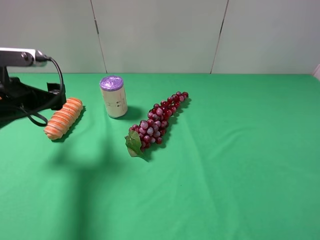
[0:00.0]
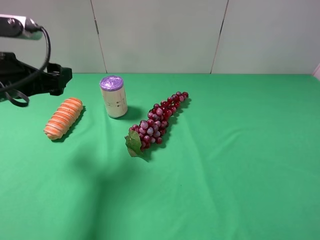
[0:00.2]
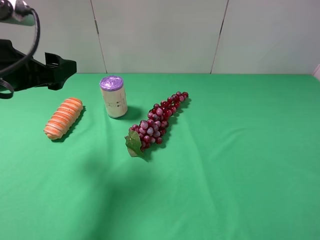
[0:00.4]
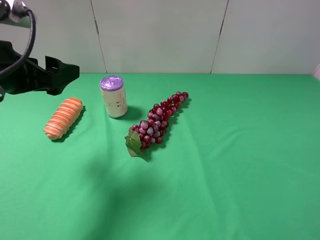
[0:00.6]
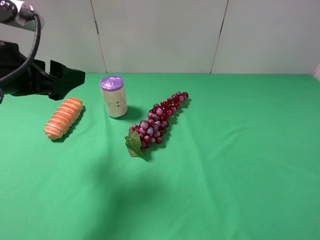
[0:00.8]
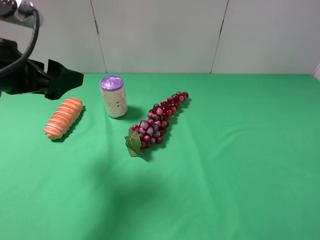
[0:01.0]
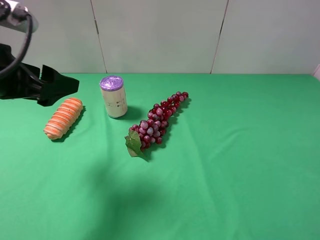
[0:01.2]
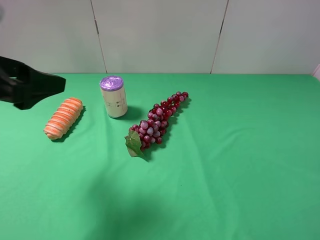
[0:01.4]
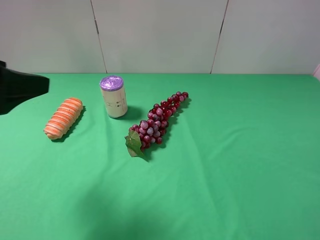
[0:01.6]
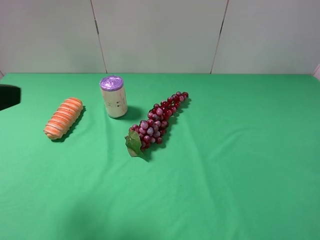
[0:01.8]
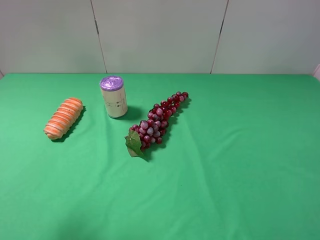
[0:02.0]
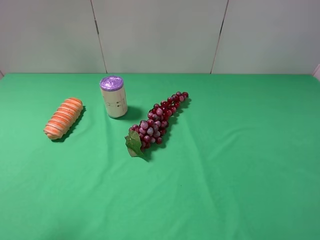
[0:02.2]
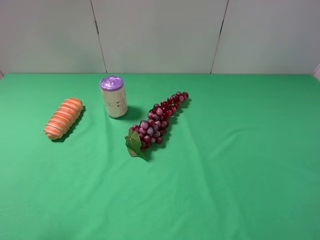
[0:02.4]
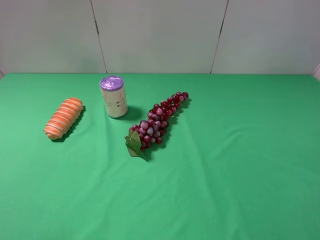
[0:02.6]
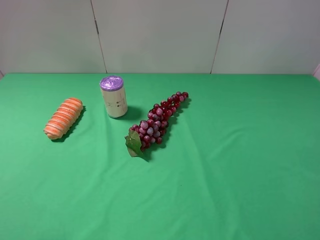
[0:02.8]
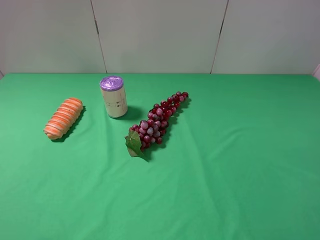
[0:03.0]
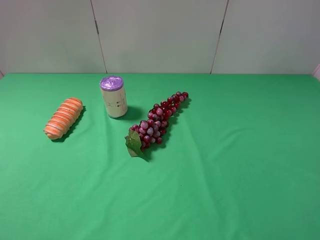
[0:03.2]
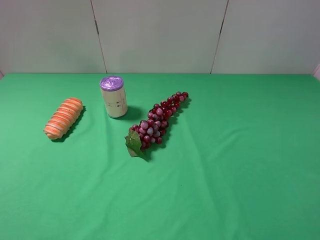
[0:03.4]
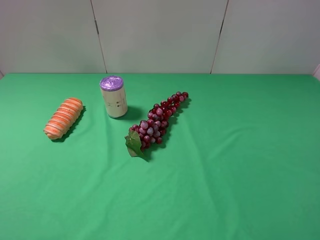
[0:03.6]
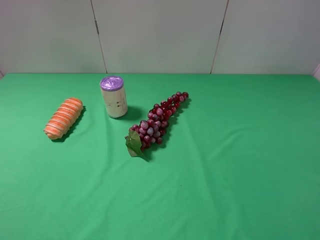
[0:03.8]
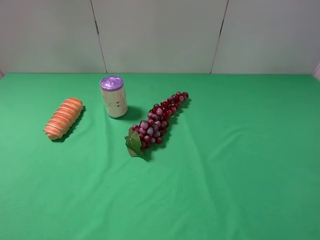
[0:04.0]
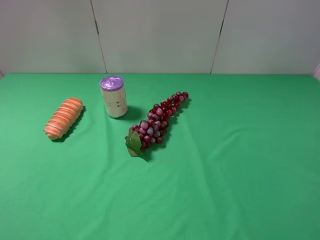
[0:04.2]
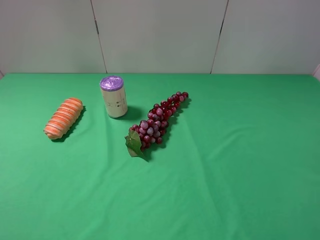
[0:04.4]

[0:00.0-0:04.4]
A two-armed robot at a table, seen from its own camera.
Task of the whole recording: use the right gripper to pick up the item and transfer it from the right gripper to the left gripper.
0.0 to 1.4 s: The left gripper moves upward and backward, some 10 cm.
1.4 to 3.0 s: The left gripper moves backward, roughly 15 cm.

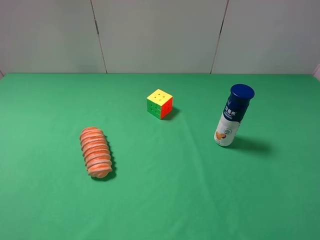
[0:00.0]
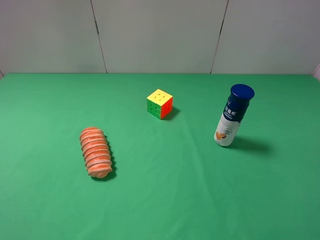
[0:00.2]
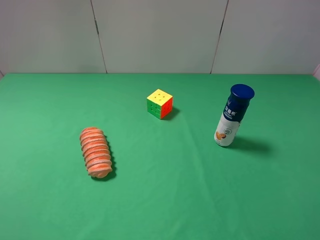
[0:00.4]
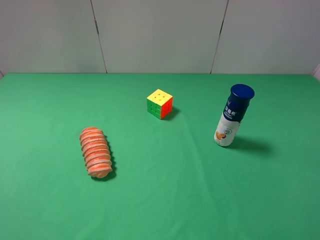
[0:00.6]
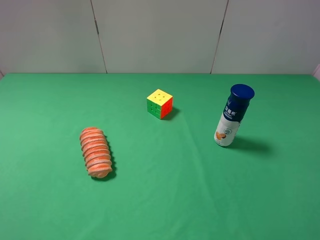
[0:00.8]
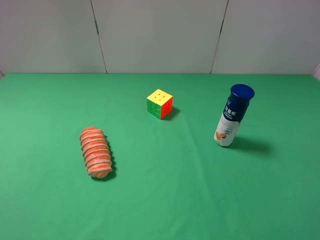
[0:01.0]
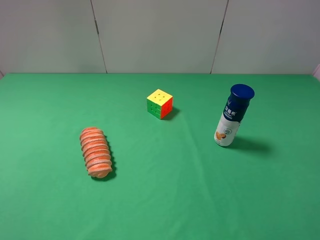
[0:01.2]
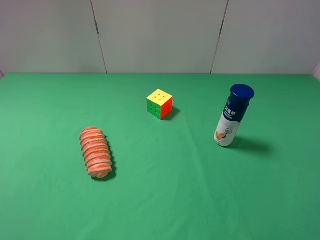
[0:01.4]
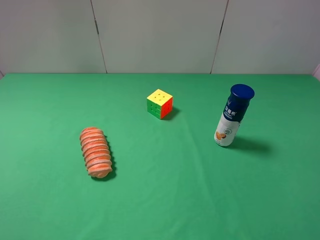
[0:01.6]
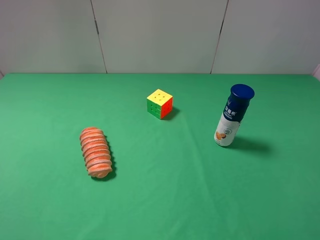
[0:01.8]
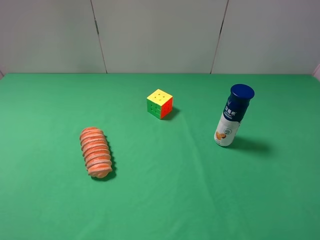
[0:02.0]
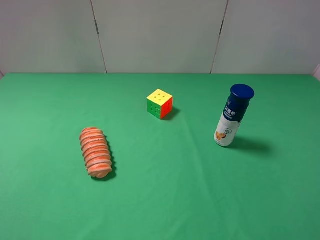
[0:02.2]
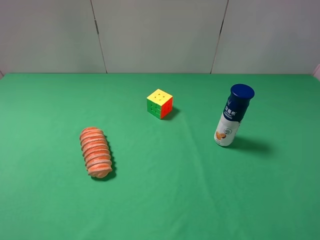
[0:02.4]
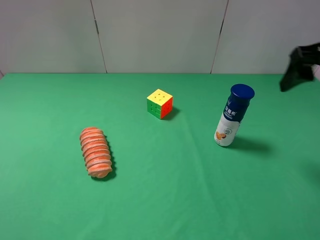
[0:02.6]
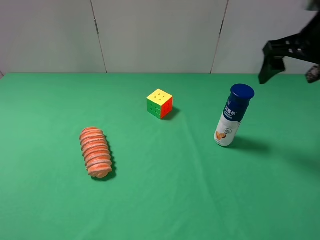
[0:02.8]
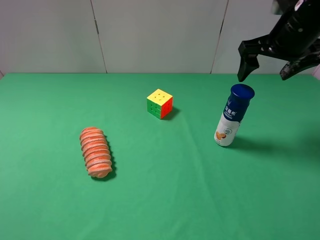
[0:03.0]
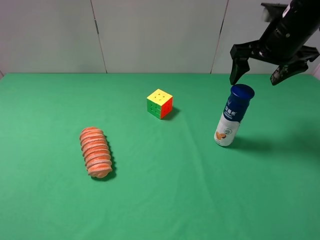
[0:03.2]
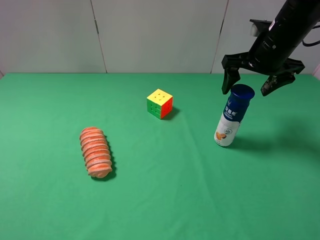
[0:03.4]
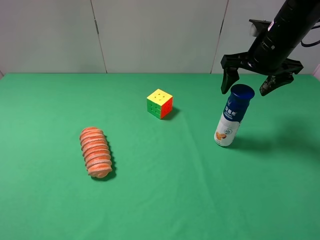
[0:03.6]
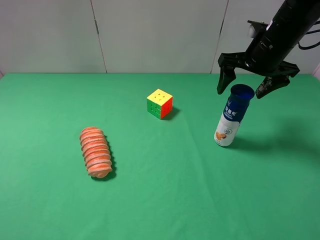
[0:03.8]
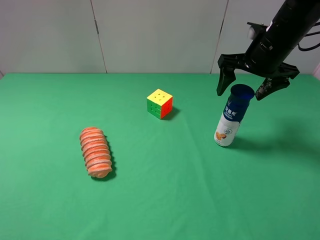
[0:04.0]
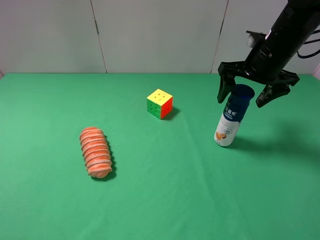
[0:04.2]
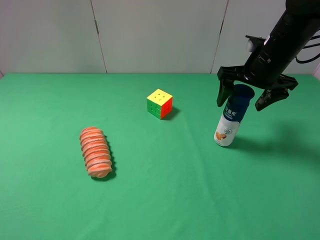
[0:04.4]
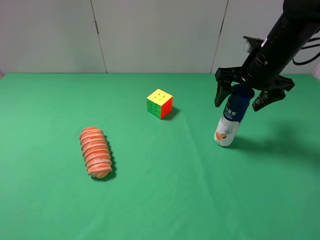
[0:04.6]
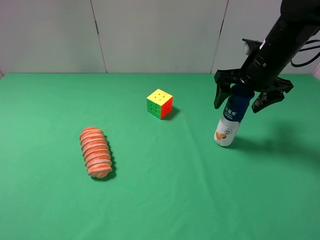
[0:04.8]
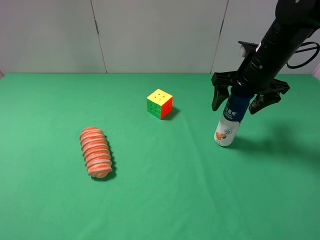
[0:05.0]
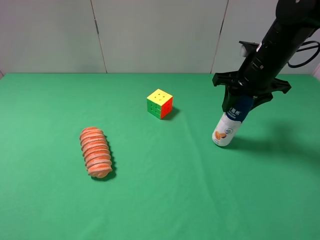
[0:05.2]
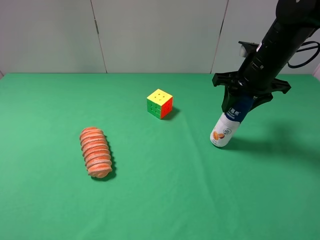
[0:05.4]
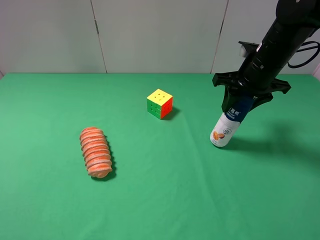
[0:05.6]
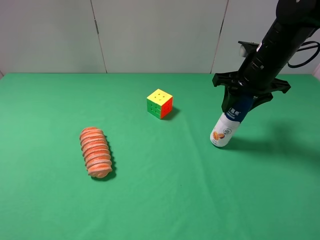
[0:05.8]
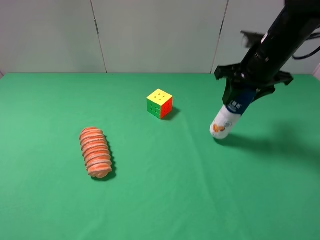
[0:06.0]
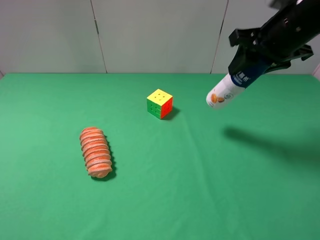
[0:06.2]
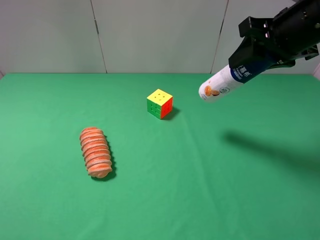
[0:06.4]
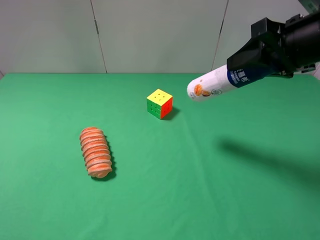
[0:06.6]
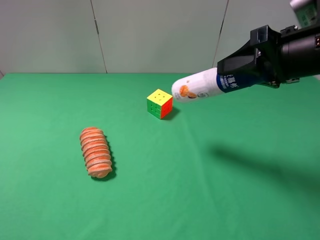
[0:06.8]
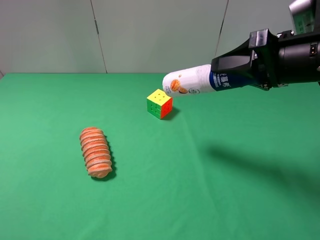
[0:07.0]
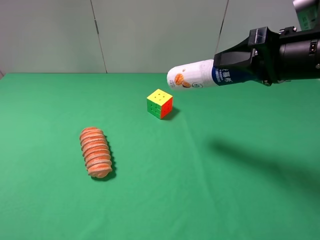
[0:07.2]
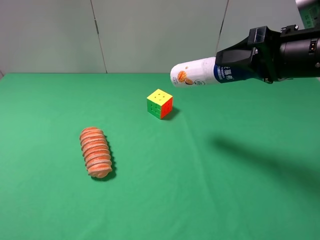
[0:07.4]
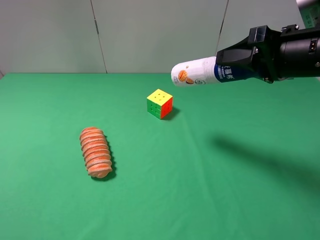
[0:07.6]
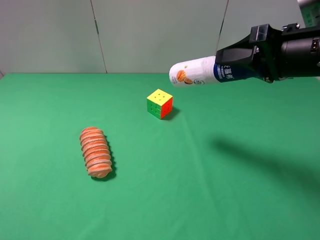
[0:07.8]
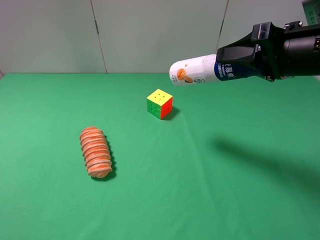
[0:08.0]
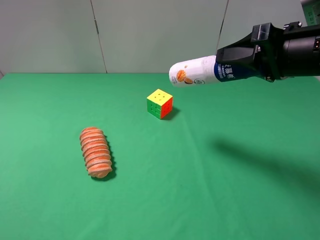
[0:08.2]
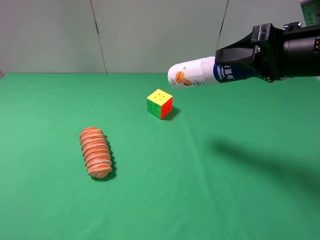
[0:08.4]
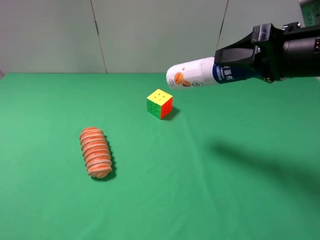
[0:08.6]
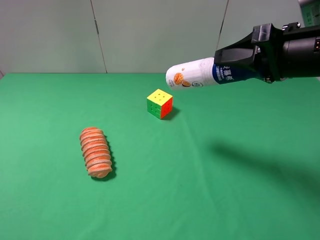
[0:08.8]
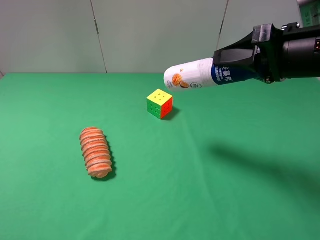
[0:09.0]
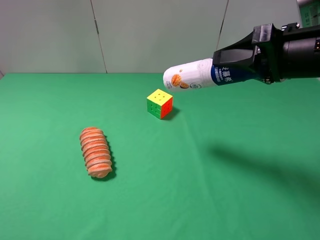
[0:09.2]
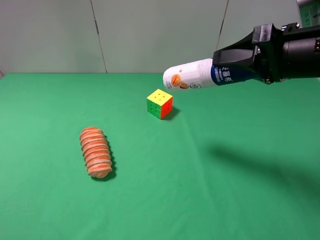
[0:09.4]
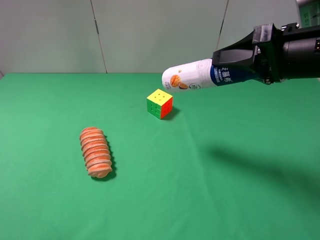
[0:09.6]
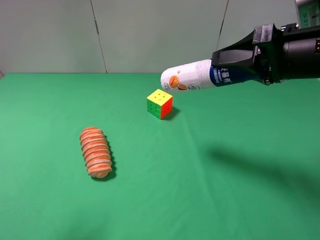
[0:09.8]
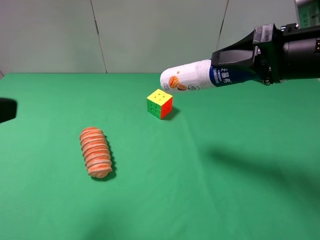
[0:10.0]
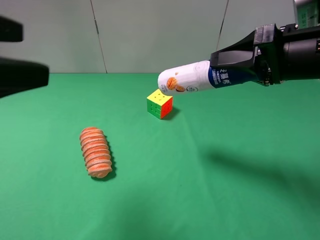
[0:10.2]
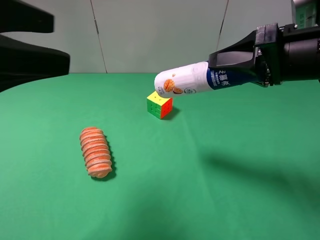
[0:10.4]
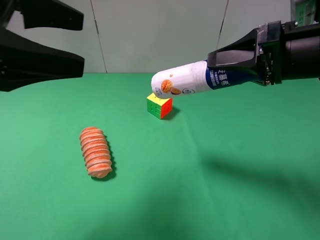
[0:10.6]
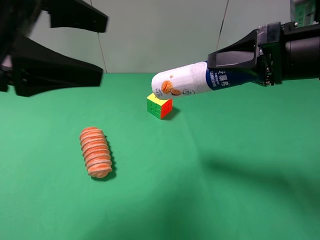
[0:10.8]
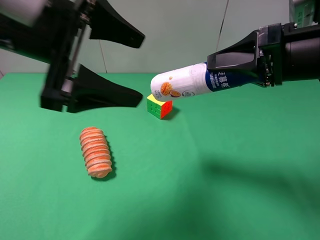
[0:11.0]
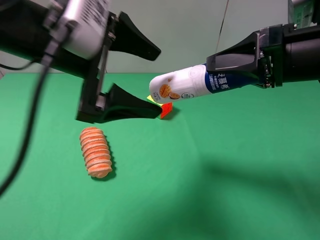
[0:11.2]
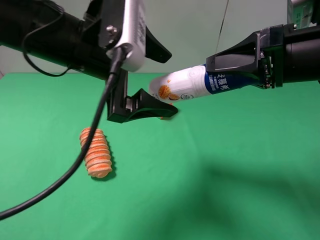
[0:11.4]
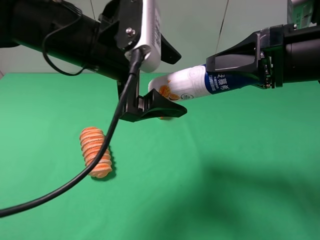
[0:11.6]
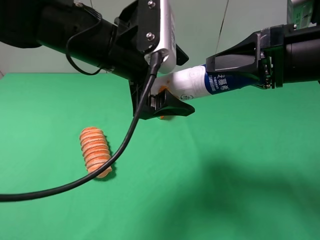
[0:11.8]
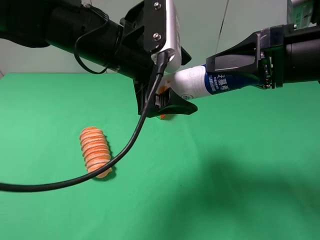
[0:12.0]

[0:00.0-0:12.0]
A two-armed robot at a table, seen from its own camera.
Task of the whole recording: use the right gripper to pick up the item and transfer it from the right gripper to the left gripper.
Step, 0.0 to 5.2 s: Use the right gripper to grab the bread on the right side of the table.
0.0 to 1.6 s: The two grippers keep their place.
1.6 to 3.0 s: The right gripper travels forward by approximately 30 cm.
3.0 to 4.4 s: The right gripper is displaced downward by some 5 cm.
4.4 to 6.0 s: The right gripper closes up.
6.0 to 7.6 s: The right gripper is displaced backward by approximately 10 cm.
7.6 to 9.0 s: Neither gripper changes place.
9.0 to 10.4 s: The left gripper travels forward and to the right by roughly 20 cm.
10.4 to 12.0 s: The left gripper moves to the right, forward and downward, roughly 20 cm.

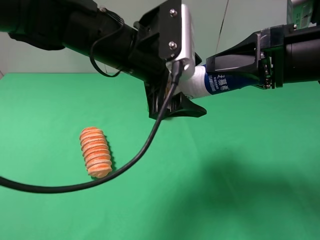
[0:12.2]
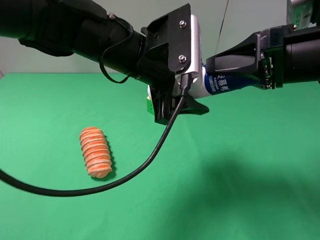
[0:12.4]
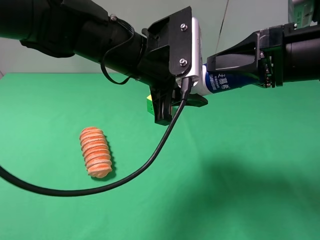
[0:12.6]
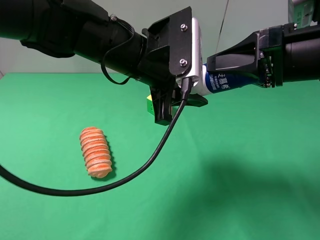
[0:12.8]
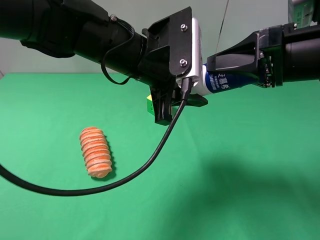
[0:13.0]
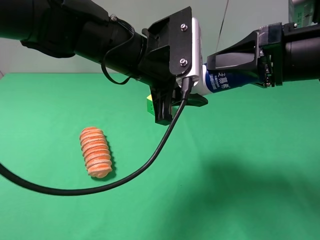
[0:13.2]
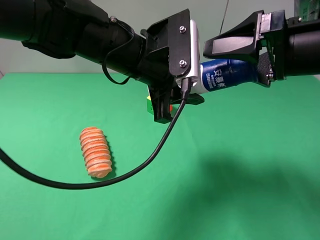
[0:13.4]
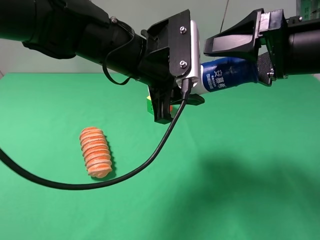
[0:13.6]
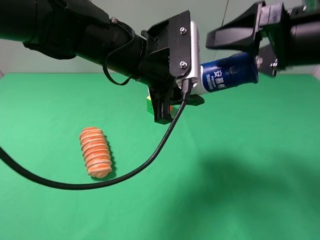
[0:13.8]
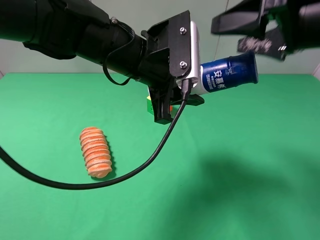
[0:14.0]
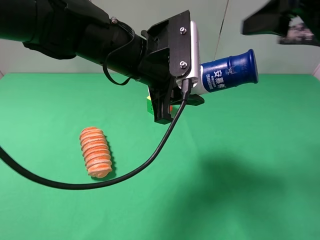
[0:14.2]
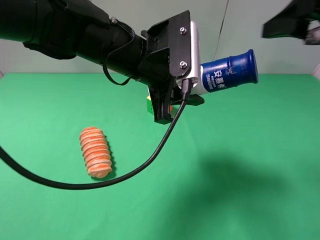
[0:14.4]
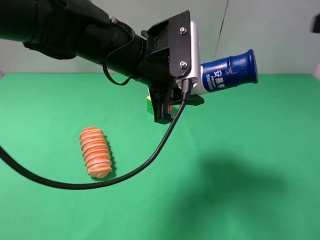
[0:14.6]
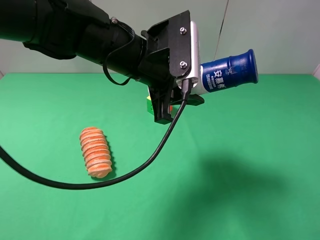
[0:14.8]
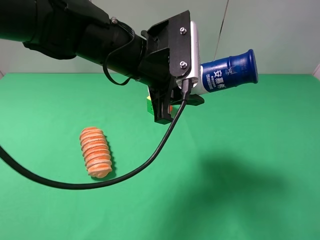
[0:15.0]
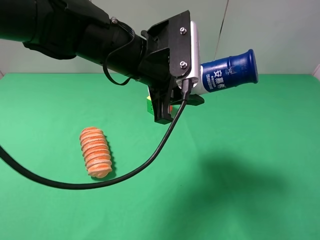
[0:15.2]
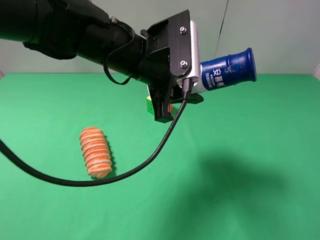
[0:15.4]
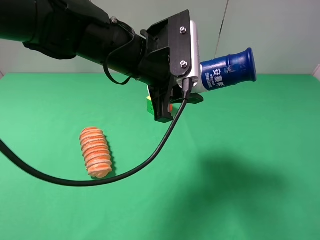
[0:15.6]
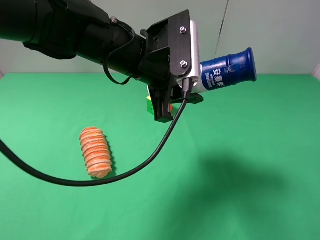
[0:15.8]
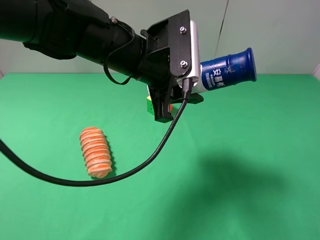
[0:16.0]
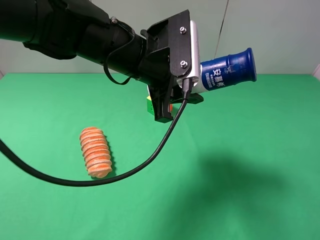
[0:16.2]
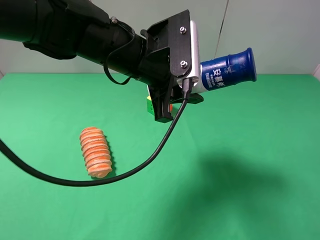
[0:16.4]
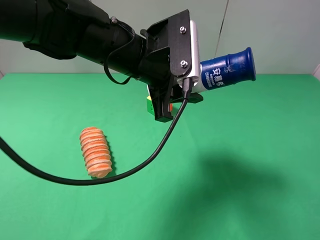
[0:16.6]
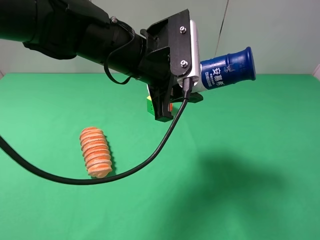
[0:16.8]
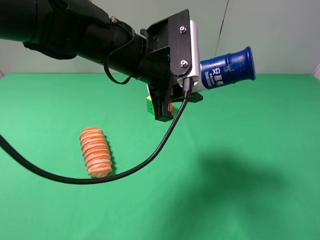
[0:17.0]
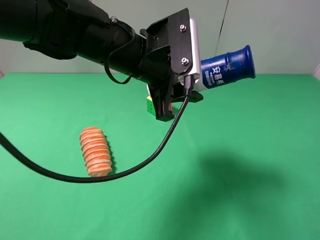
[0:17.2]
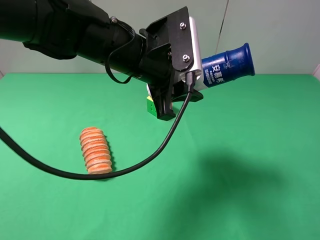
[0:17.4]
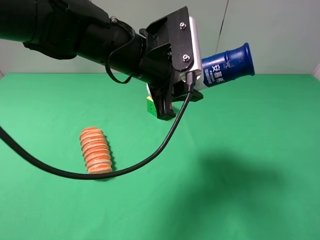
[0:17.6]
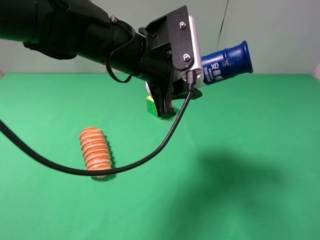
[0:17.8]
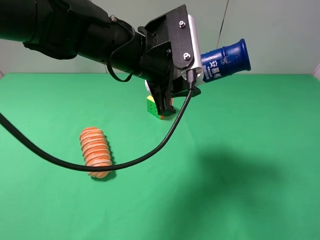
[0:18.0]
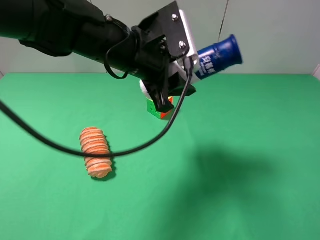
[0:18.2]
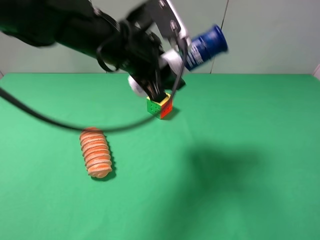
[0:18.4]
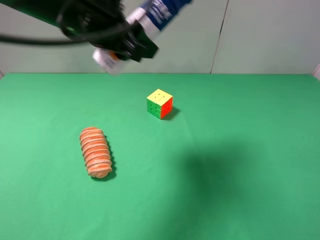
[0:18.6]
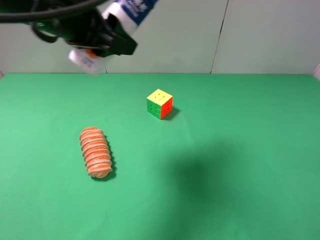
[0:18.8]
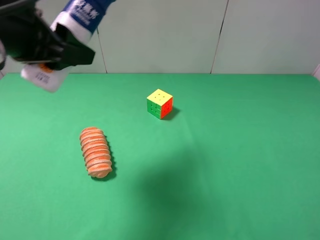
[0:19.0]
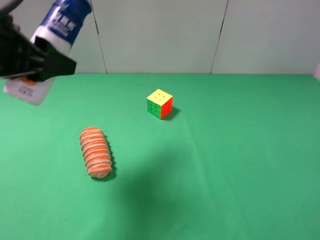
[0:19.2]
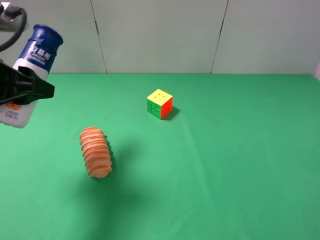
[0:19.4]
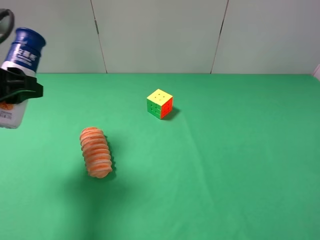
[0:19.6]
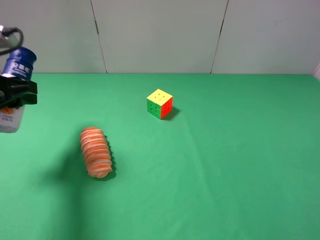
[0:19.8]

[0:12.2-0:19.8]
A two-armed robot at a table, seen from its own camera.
Task of the whole recording: use the right gripper to pick up the item and transfer it from the right gripper to the left gripper.
12.2 to 13.8 s: The left gripper closes up; the right gripper opens.
13.8 to 15.2 s: The right gripper shifts about 25 cm backward and to the right.
15.2 to 16.8 s: The right gripper heads downward, covering roughly 10 cm.
16.8 to 18.2 s: The grippers make only small movements.
18.2 to 19.8 s: The left gripper shifts approximately 25 cm to the left.
